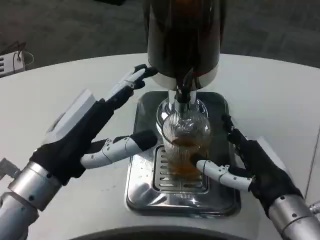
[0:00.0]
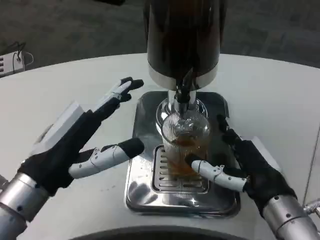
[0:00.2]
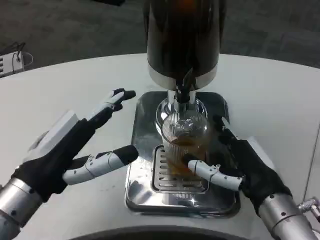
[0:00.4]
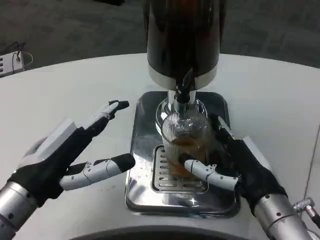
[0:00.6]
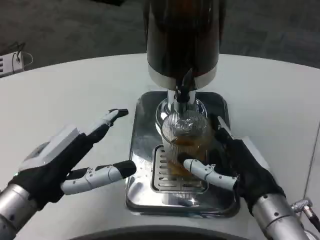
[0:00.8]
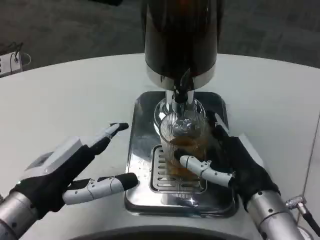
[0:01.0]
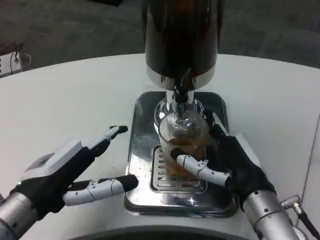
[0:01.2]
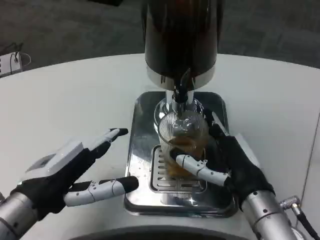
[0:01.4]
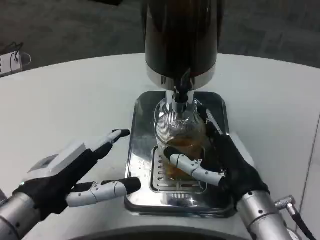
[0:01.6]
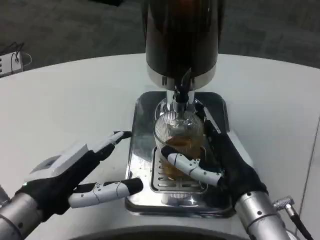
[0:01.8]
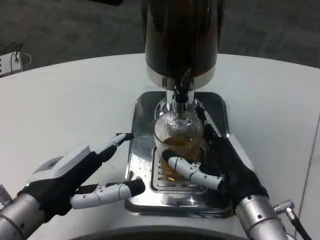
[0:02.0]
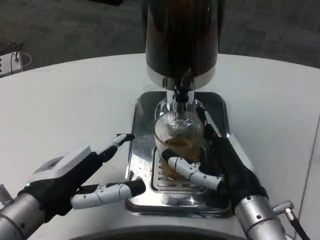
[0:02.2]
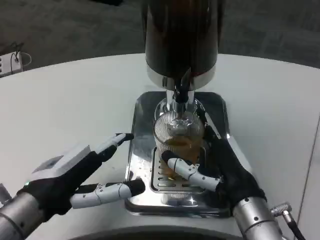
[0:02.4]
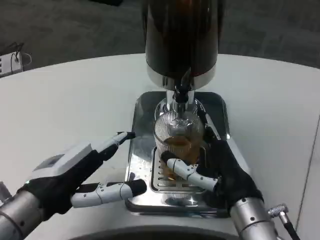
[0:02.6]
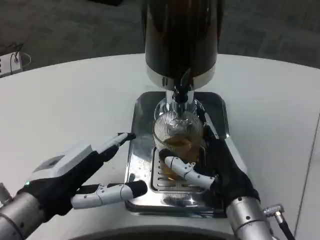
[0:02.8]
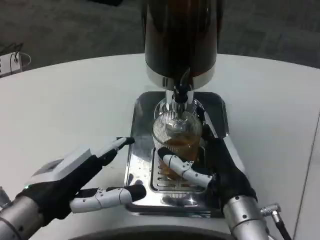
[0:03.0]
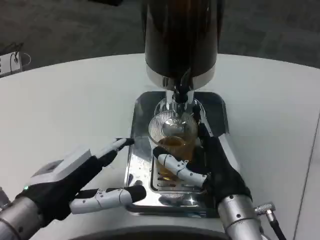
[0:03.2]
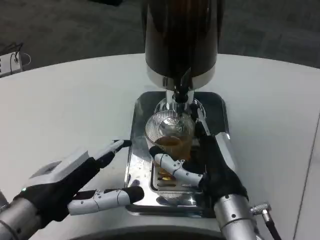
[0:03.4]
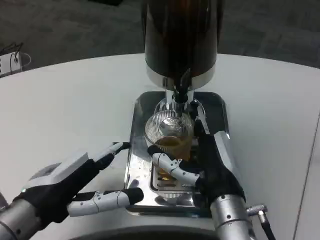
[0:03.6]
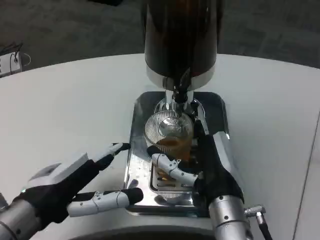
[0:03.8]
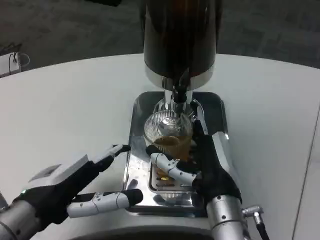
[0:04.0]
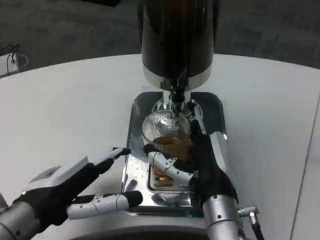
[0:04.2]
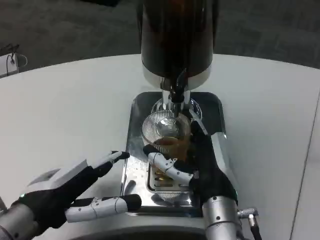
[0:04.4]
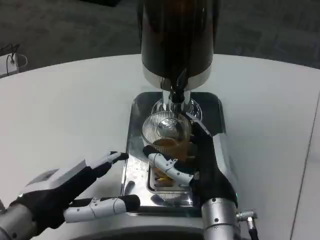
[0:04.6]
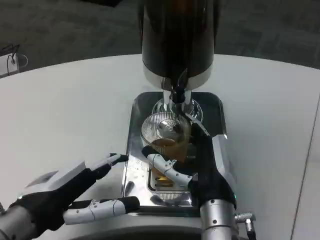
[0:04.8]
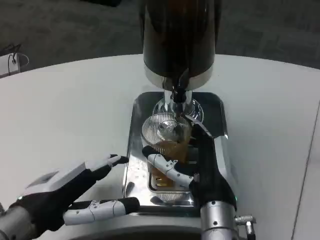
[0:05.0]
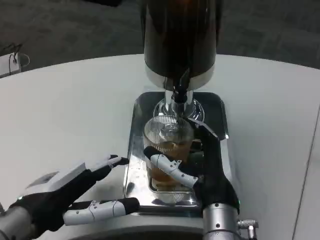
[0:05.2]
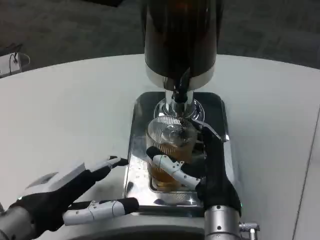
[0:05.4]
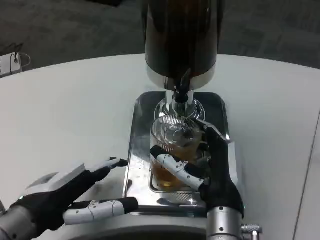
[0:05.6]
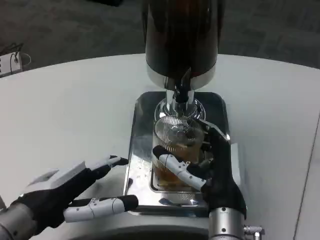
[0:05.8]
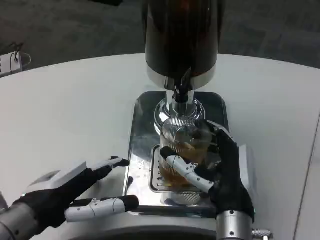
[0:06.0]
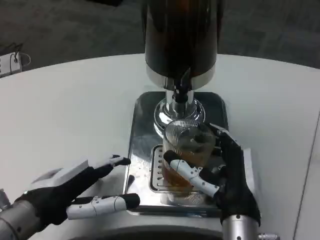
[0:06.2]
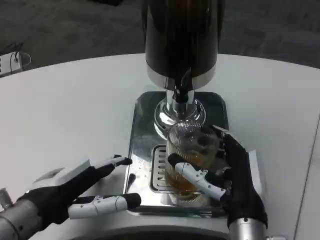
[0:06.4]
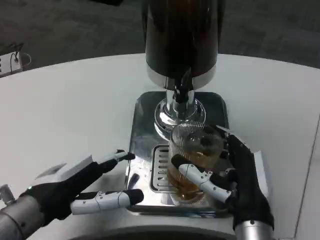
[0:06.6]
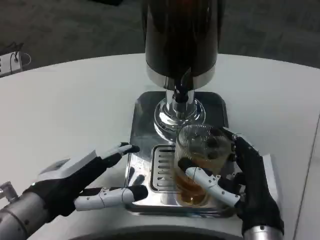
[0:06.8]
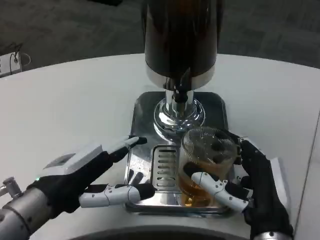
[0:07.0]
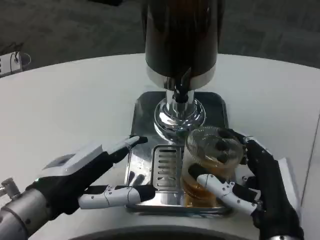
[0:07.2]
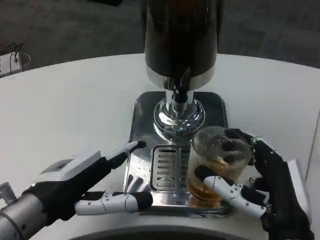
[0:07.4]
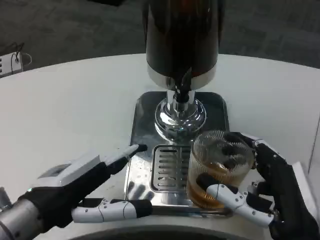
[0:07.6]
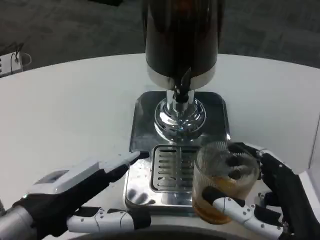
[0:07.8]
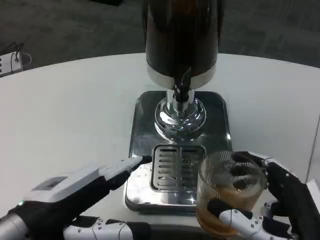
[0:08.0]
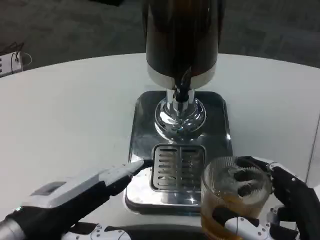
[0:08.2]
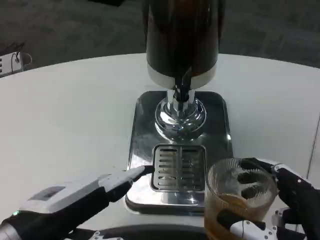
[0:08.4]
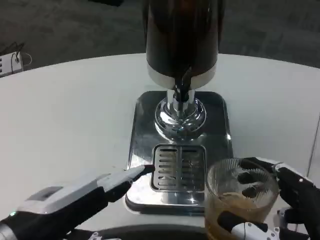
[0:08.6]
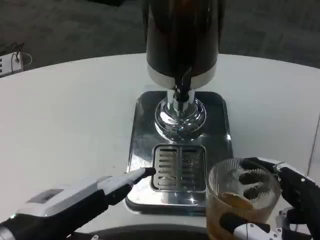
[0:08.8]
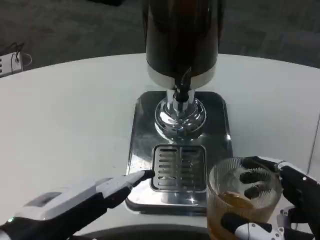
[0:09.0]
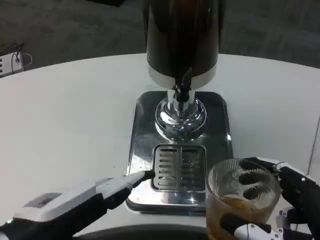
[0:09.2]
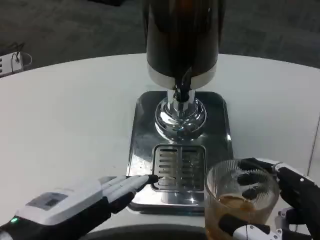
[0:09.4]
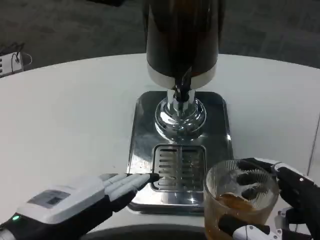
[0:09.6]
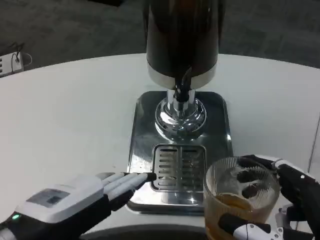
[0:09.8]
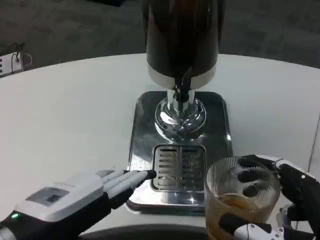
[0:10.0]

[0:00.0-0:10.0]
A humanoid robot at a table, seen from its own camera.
Task of the whole recording: Grasp the cup under the faucet to collect the drink, then remove the cup.
0:01.4 to 0:02.8: The hands move only a little.
0:04.2 to 0:05.8: There are only small adjustments of the hands.
0:05.8 to 0:07.2: The right hand shifts approximately 10 cm to the right and backward.
0:07.2 to 0:08.6: The right hand travels backward and to the right by roughly 10 cm, while the left hand goes about 5 cm backward.
0:08.6 to 0:10.0: The hands make only small movements.

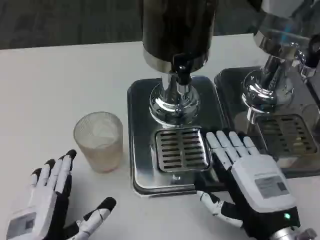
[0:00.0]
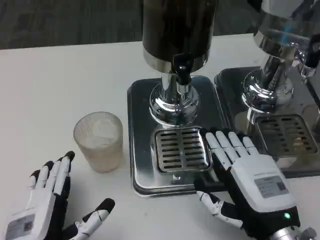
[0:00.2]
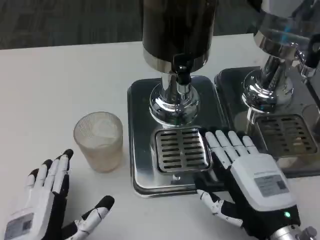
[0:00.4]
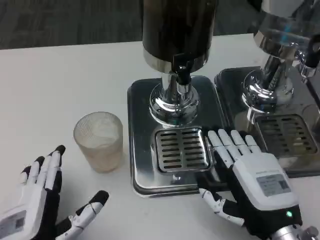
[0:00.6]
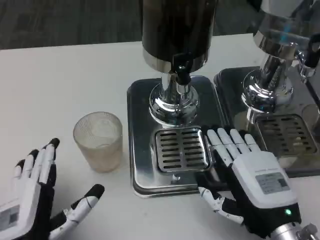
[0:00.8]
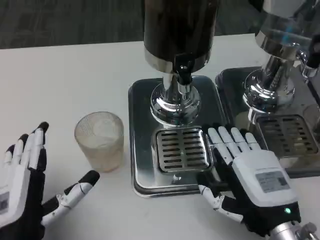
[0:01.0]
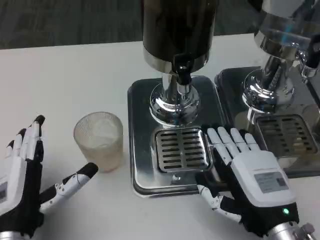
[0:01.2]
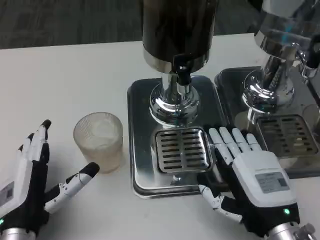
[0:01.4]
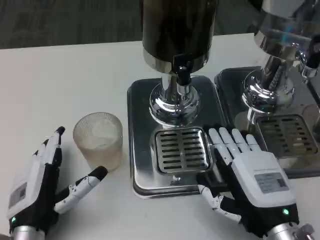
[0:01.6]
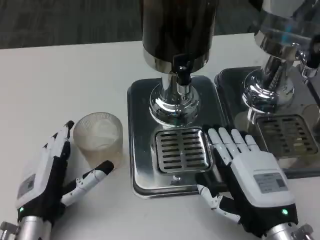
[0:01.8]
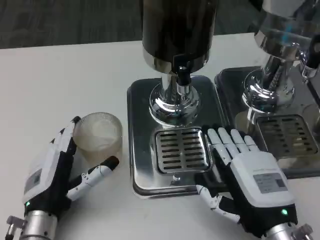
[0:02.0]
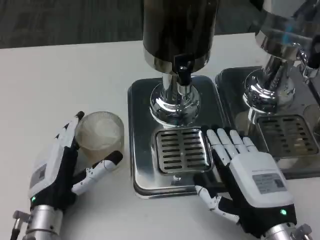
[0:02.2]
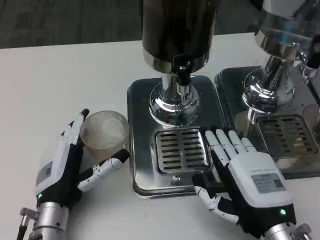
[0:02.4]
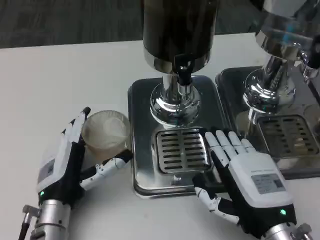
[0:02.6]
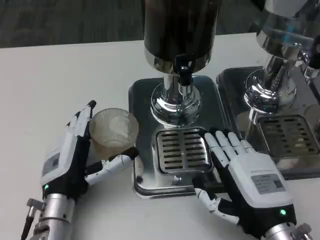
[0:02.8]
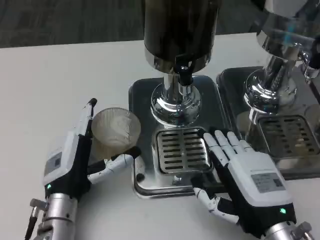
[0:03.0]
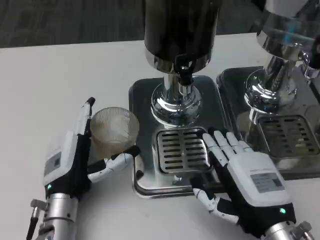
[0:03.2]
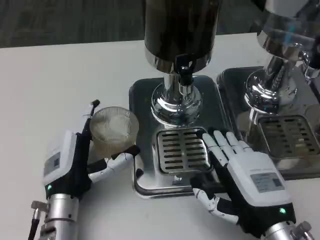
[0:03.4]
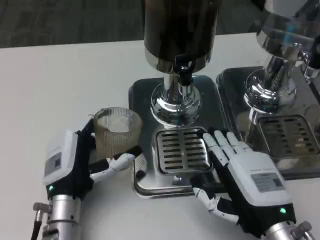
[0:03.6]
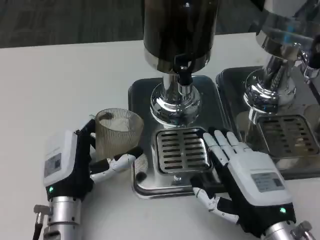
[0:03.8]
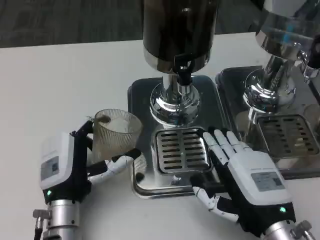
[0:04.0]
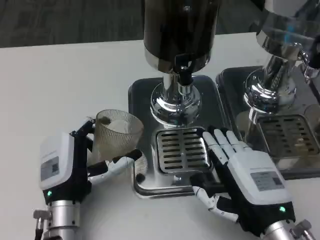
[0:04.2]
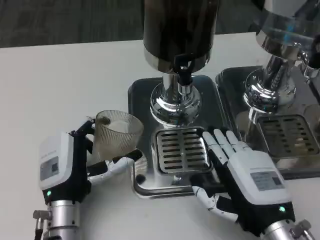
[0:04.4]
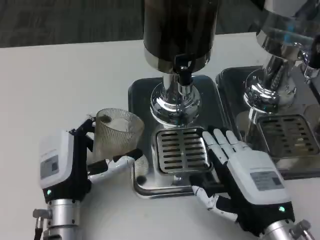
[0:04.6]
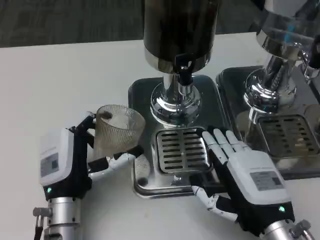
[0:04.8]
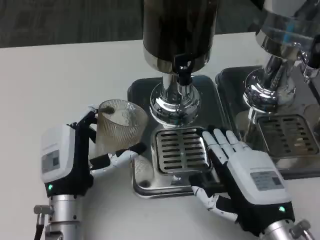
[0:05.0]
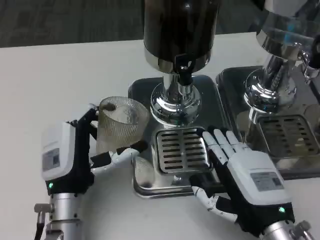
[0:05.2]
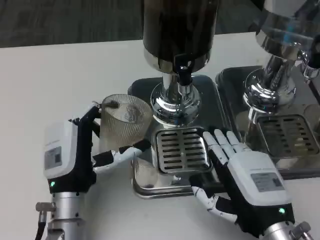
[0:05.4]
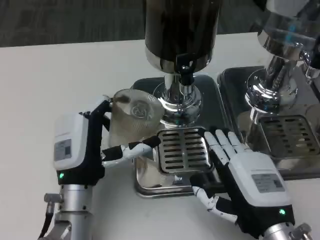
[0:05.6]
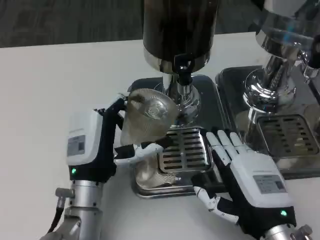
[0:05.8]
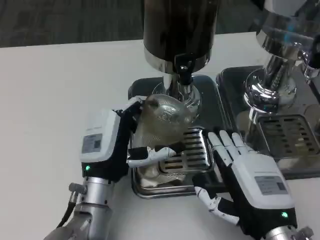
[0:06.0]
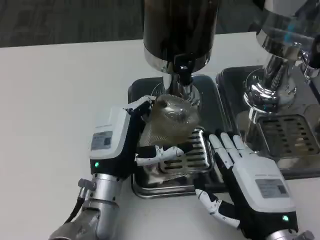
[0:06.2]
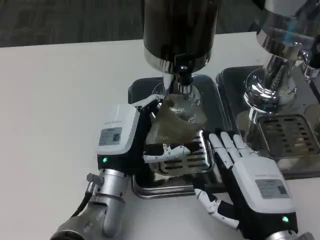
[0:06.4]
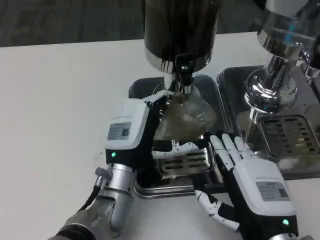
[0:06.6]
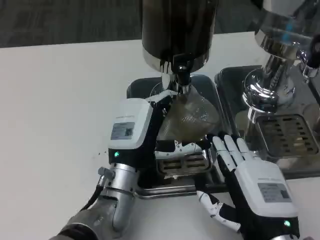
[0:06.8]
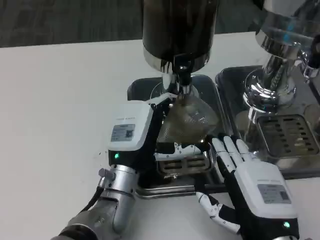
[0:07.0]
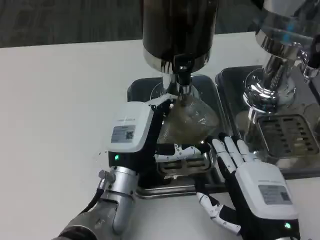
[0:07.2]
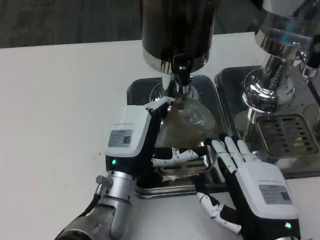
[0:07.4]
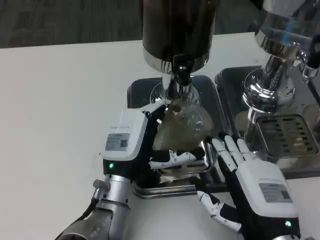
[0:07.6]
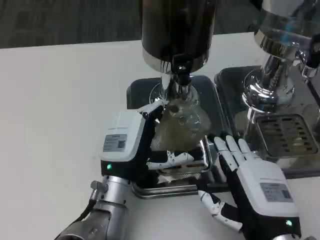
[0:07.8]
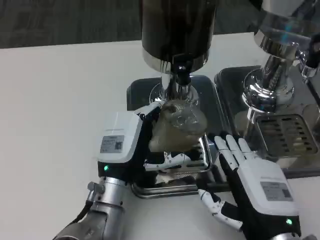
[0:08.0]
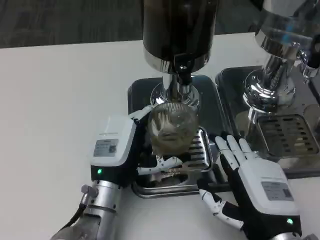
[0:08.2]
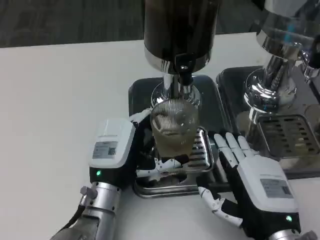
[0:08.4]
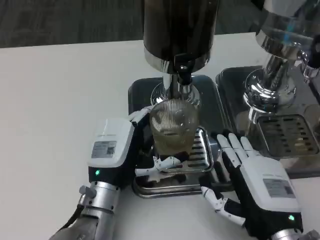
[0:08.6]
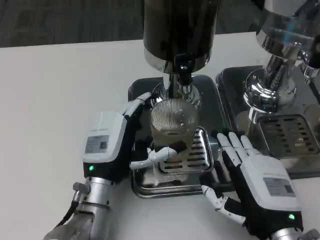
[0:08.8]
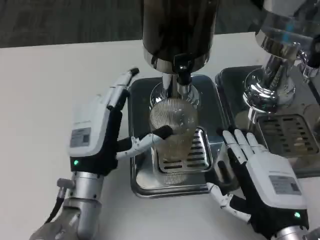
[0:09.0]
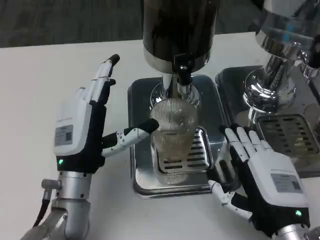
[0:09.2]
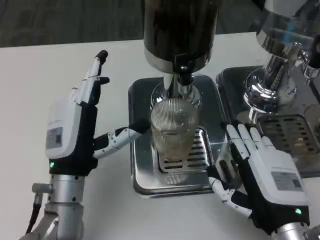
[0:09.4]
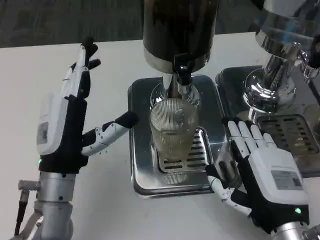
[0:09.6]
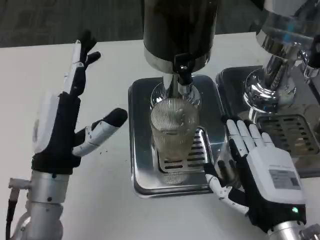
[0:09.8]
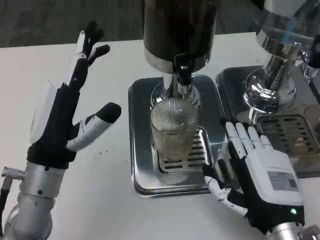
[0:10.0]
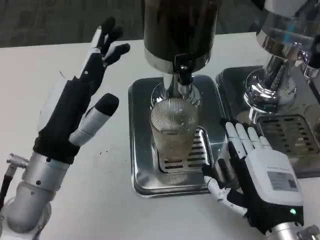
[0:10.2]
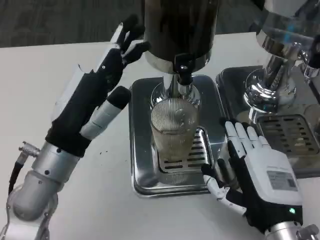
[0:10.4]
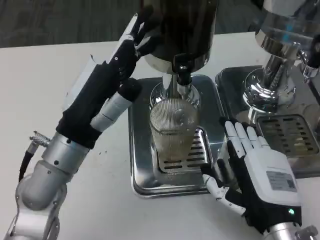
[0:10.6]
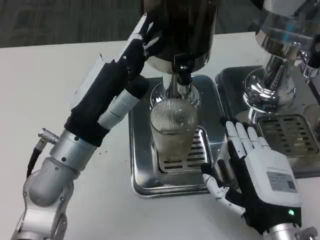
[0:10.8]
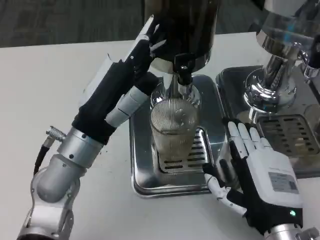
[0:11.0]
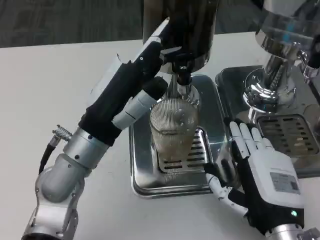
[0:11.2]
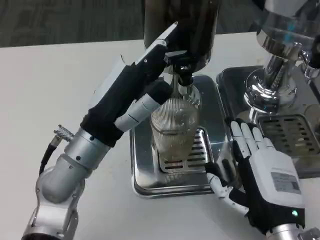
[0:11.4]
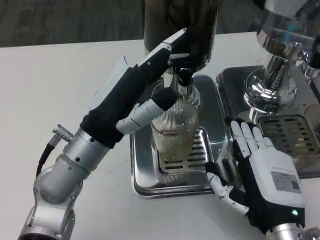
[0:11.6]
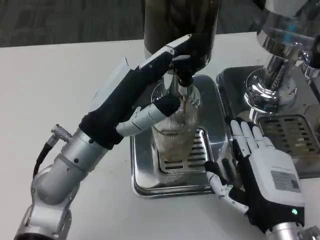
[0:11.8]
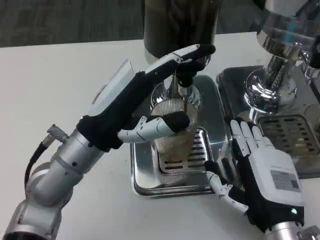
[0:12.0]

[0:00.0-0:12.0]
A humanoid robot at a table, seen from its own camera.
Task of the whole recording: Grasp the cup under the faucet to collect the drink, then remove the cup.
0:00.0 to 0:01.6: The left hand heads forward, covering approximately 5 cm.
0:01.6 to 0:03.0: The left hand is displaced forward by about 5 cm.
0:03.0 to 0:04.4: The hands stay close to where they were, moving slightly.
0:04.4 to 0:06.0: The left hand changes place by about 5 cm.
0:09.0 to 0:10.4: The left hand heads upward, covering approximately 10 cm.
